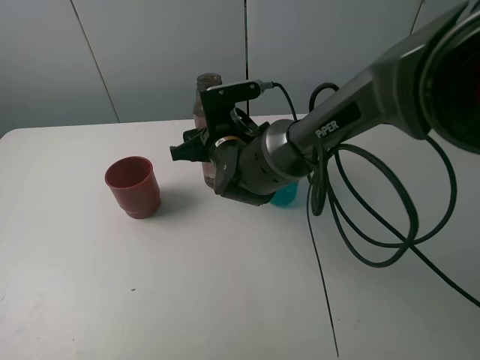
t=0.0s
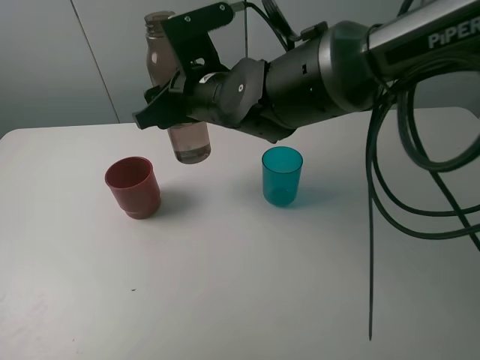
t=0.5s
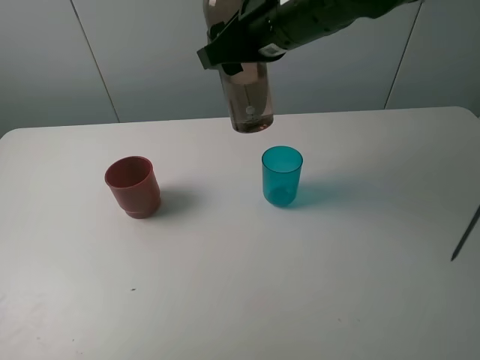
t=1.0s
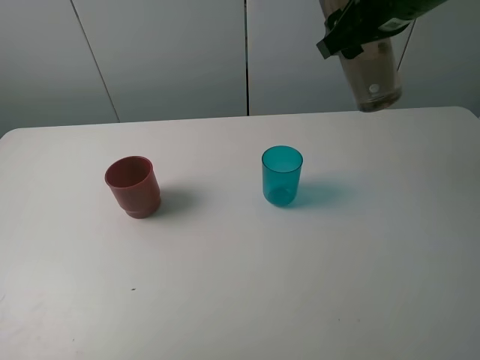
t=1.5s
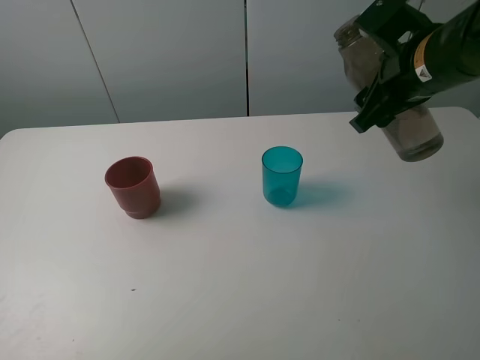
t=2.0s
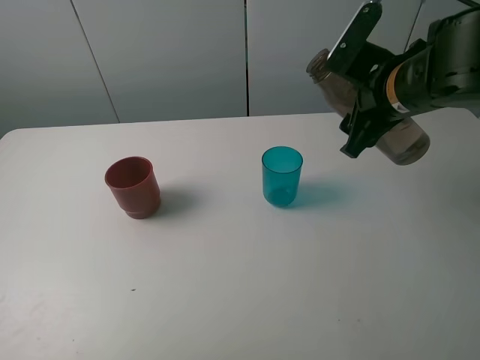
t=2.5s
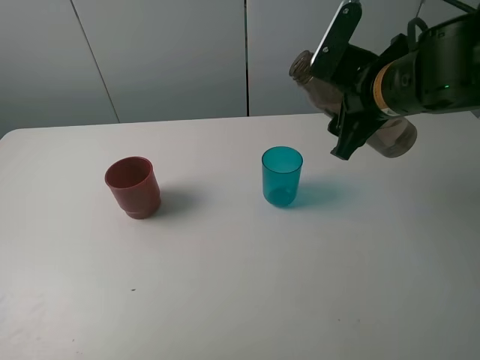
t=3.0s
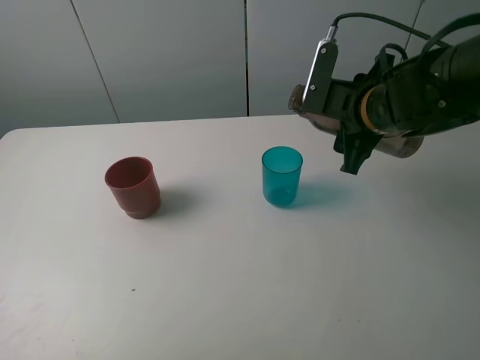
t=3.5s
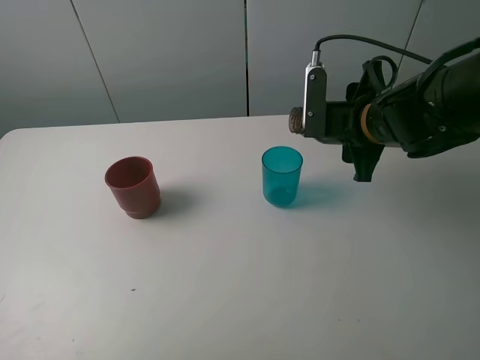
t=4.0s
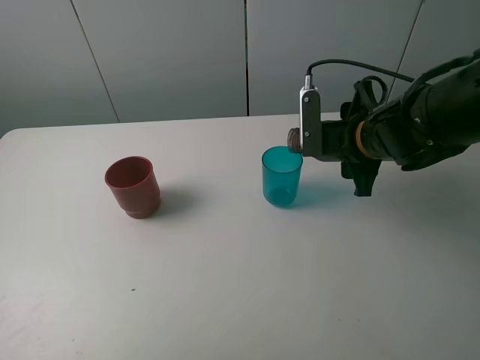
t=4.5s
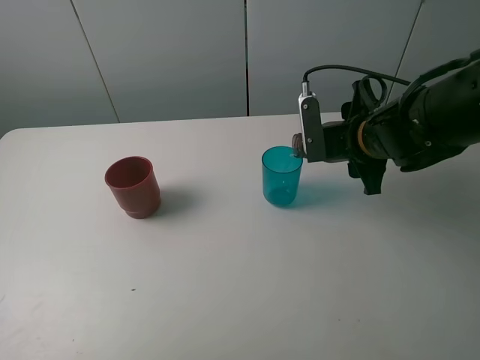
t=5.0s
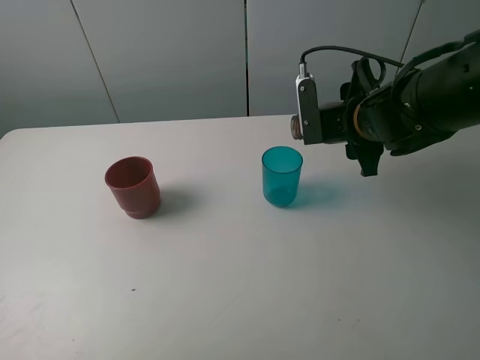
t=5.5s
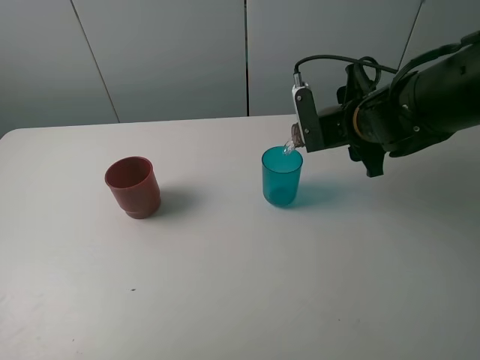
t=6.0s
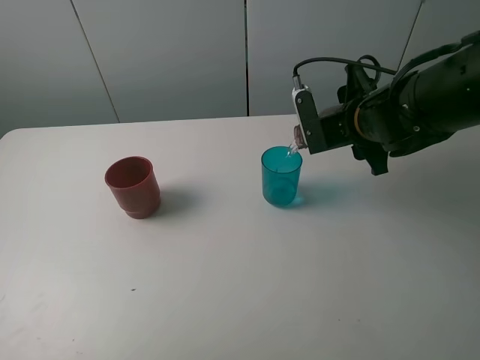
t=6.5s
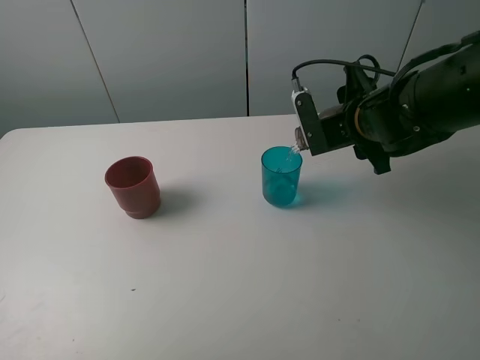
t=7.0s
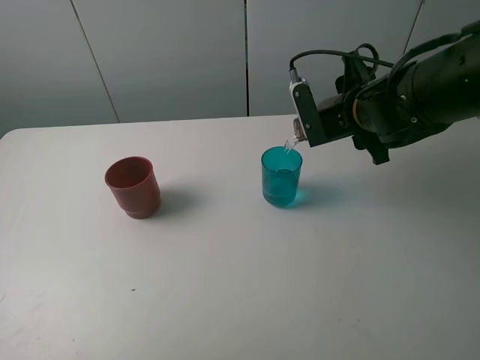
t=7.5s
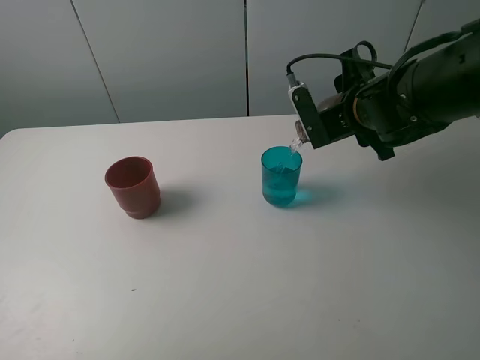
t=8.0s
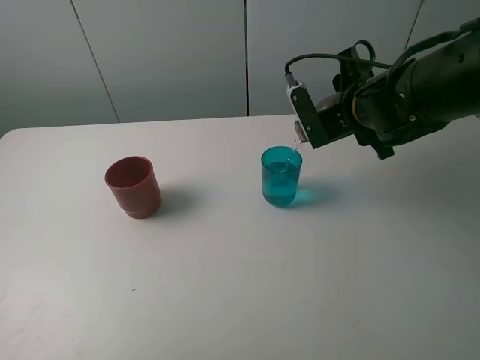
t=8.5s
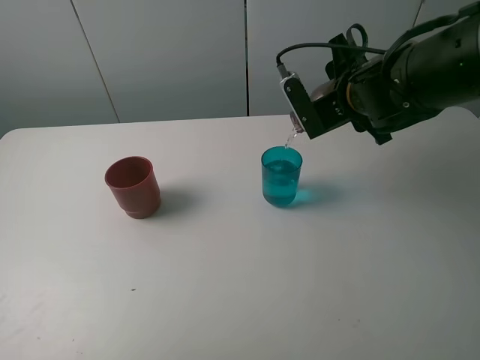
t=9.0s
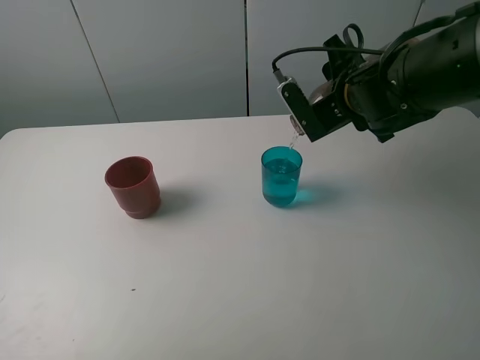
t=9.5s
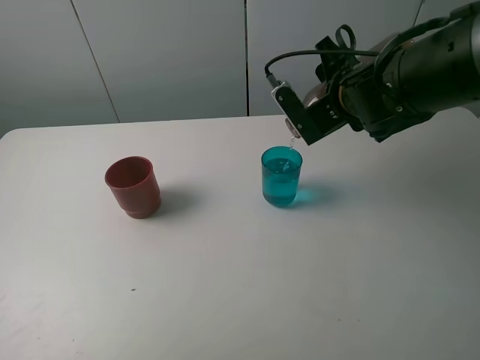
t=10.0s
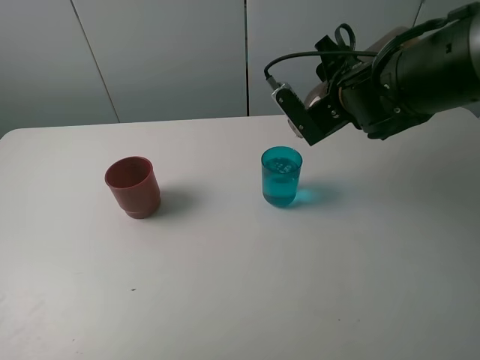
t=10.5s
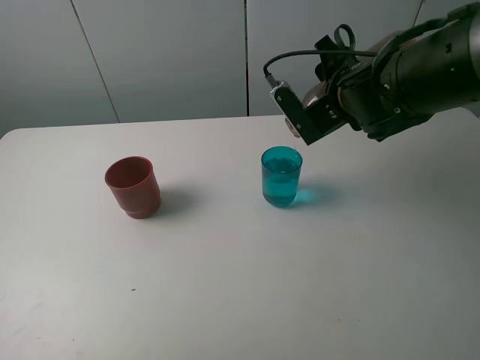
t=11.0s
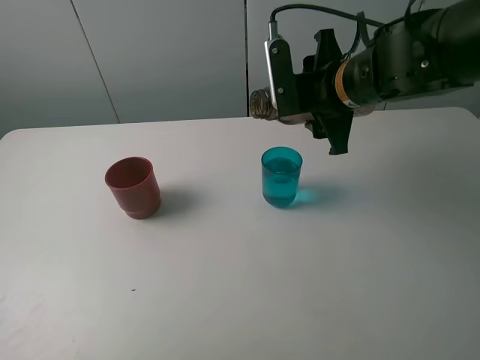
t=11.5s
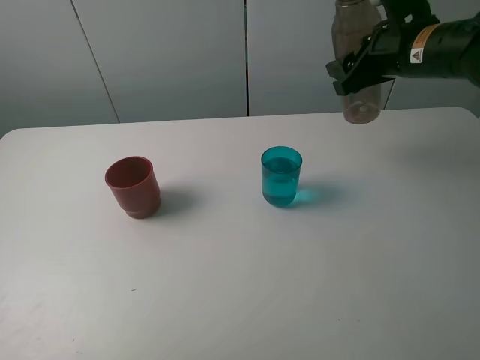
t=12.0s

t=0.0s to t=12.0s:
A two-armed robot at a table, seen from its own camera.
Task of the whole recording: pick up the bottle and pour water into the cup, then pick up the cup containing water and pour it into another cup.
Step, t=0.0s to t=11.0s: Pour water from brown bottle to blue cup with the right gripper.
t=0.0s to t=2.0s: The right gripper heads to the right and upward, covering some 25 cm.
t=2.0s to t=4.0s: The right gripper is displaced downward by roughly 5 cm.
t=4.0s to t=6.0s: There are only small adjustments of the grippers.
t=6.0s to t=8.0s: There are only small adjustments of the grippers.
t=8.0s to t=10.0s: The grippers stay close to where they were, moving slightly.
t=10.0s to t=12.0s: The right gripper travels to the right by some 10 cm.

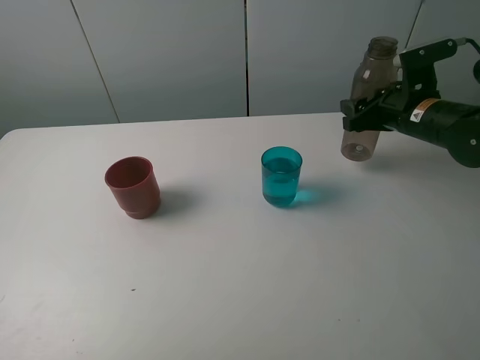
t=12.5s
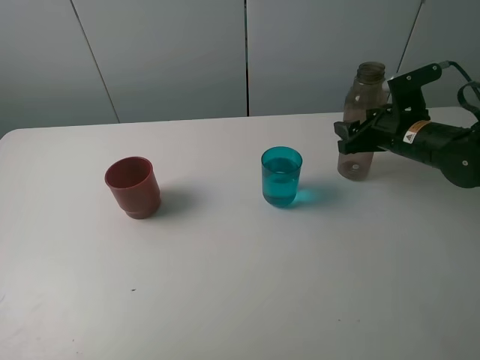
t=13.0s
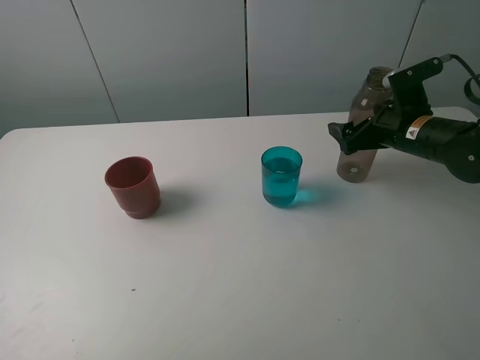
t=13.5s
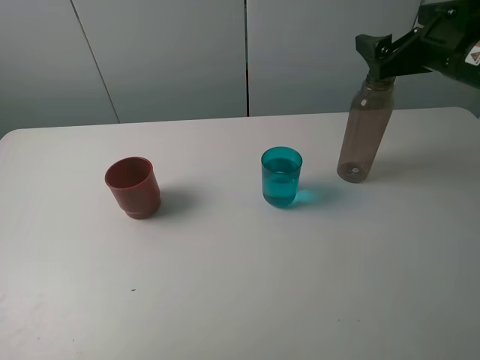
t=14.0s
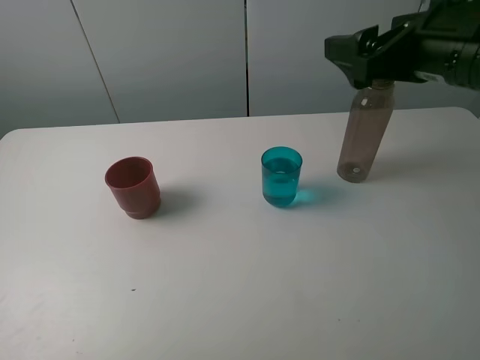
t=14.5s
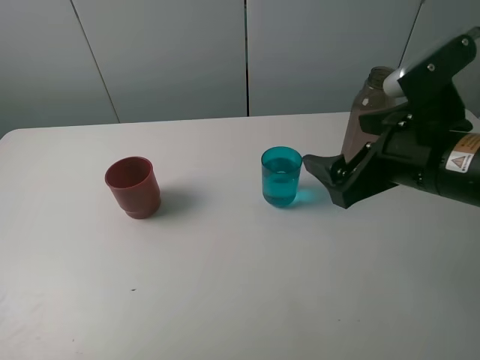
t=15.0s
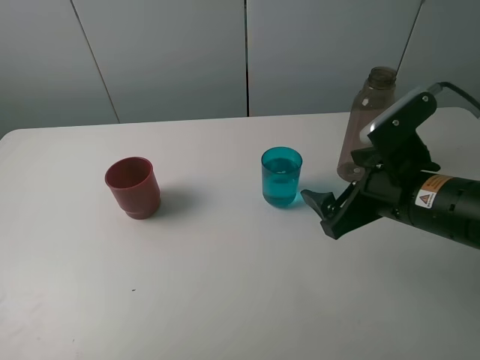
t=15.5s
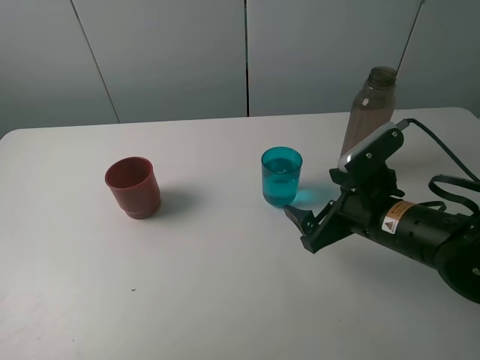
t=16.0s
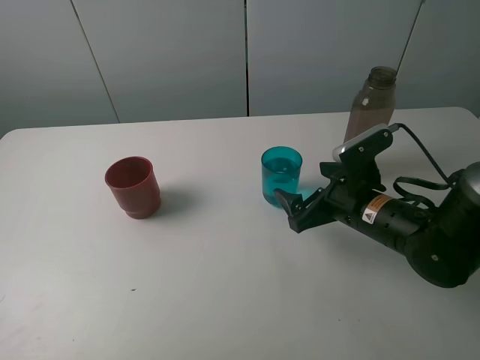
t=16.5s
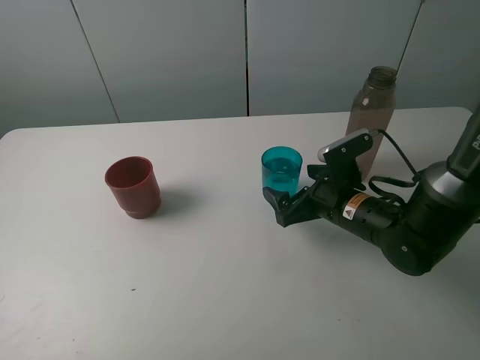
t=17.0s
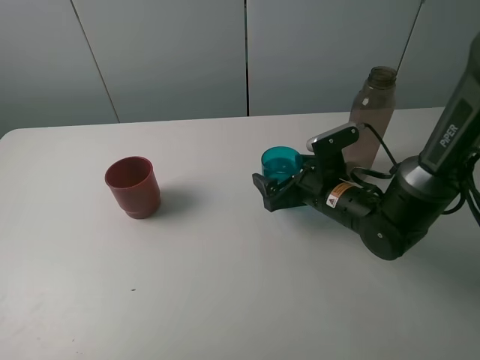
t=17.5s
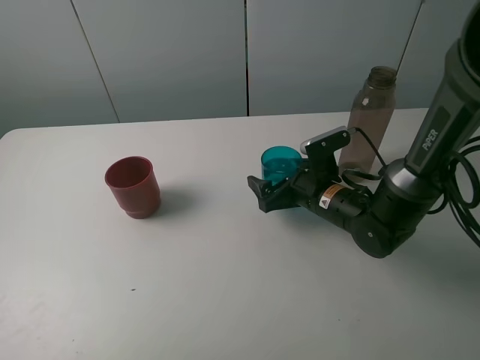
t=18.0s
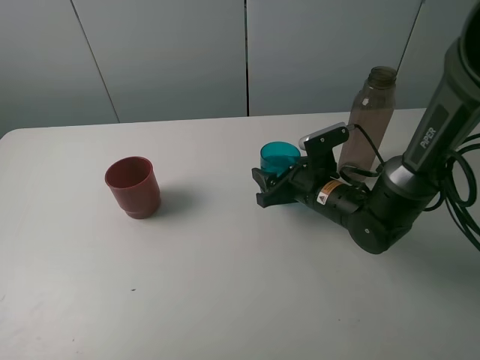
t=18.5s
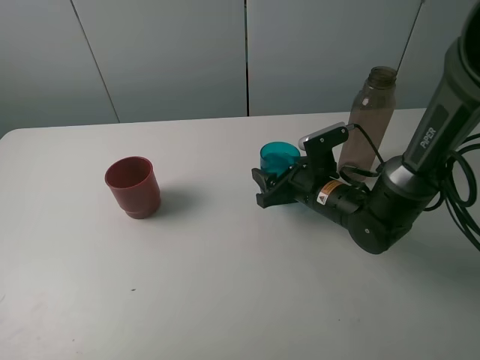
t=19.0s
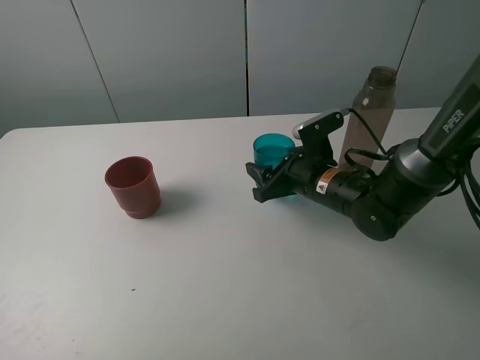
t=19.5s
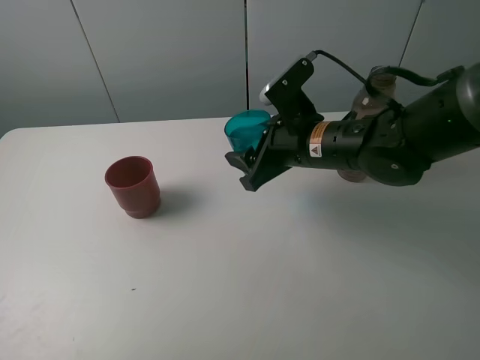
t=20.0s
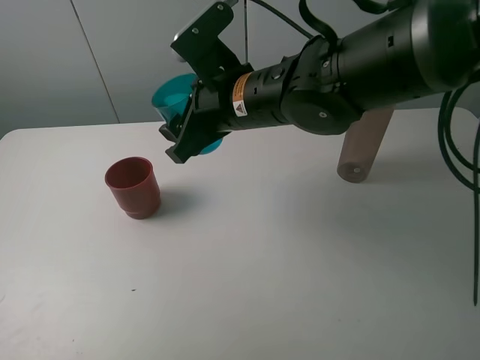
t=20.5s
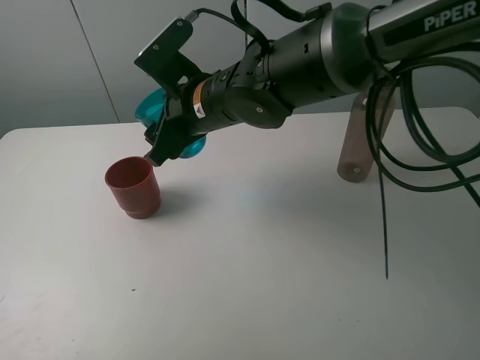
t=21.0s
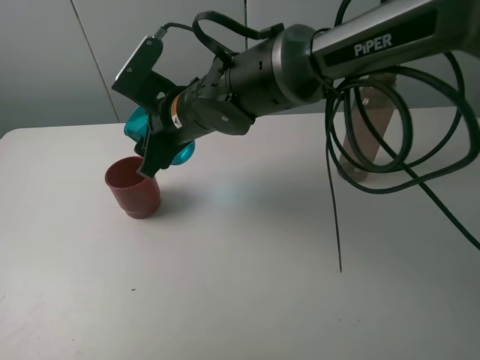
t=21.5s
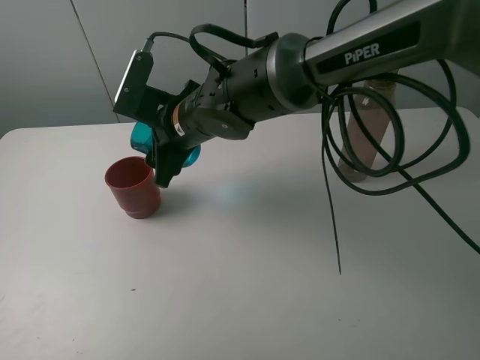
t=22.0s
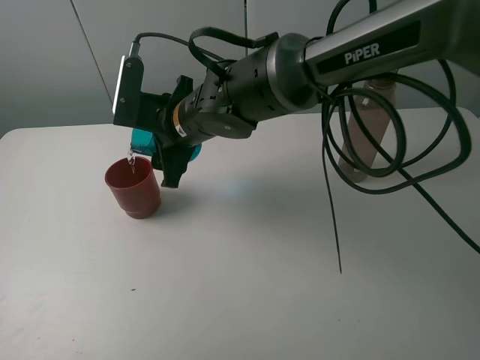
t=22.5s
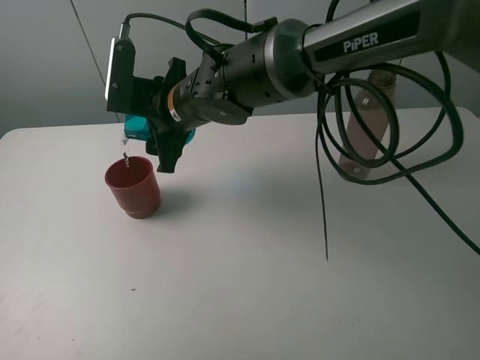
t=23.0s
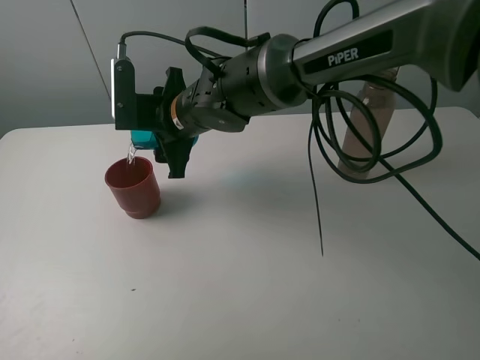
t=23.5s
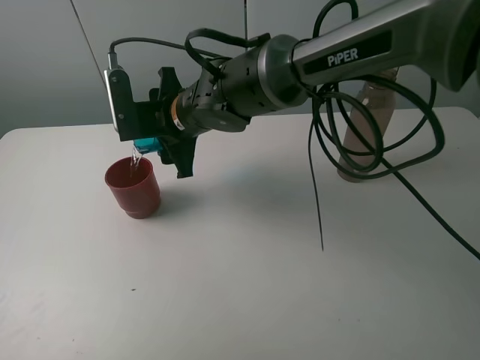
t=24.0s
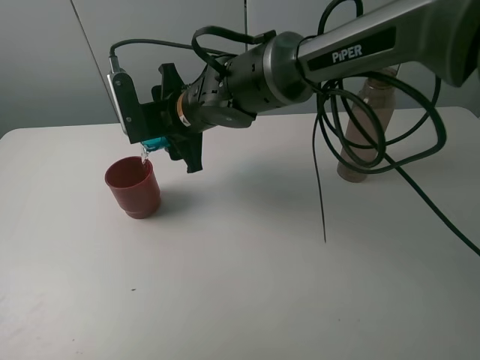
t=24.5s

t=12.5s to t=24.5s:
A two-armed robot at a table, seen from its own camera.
Task of the whole recording: pick up the bottle and pour water into the cup, then pick up the cup containing water and pour it into another cup.
Step, t=14.0s to t=18.0s: Grasp the blue cup with the right gripper.
t=12.5s to t=14.5s: The right gripper is displaced upward, backward and to the left by approximately 20 cm, and opens its fingers.
t=14.5s to t=16.5s: The right gripper moves downward, some 20 cm.
t=16.5s to t=18.5s: The right gripper is displaced forward by some 5 cm, and closes its fingers.
t=18.5s to t=20.5s: The right gripper is displaced upward and to the left by roughly 20 cm.
t=20.5s to t=22.5s: The right gripper moves to the left, some 5 cm.

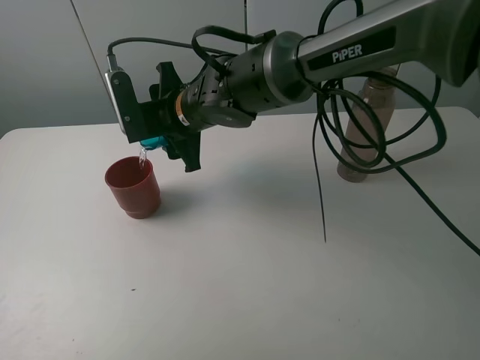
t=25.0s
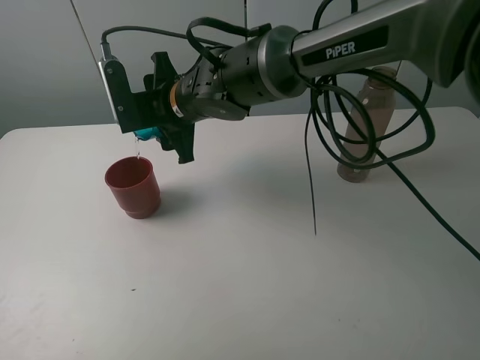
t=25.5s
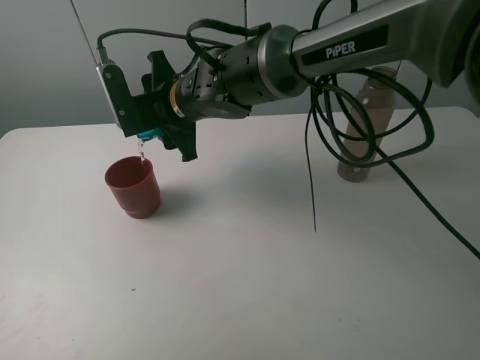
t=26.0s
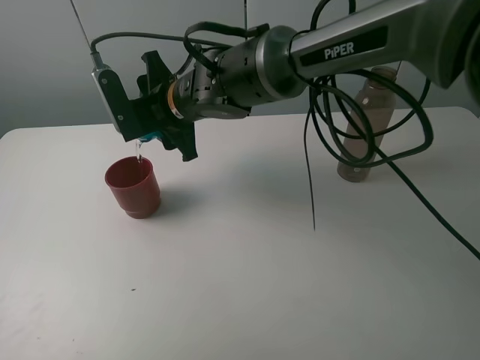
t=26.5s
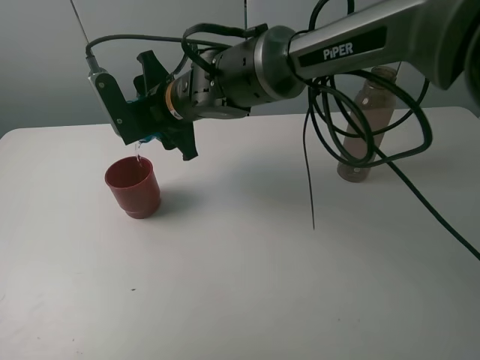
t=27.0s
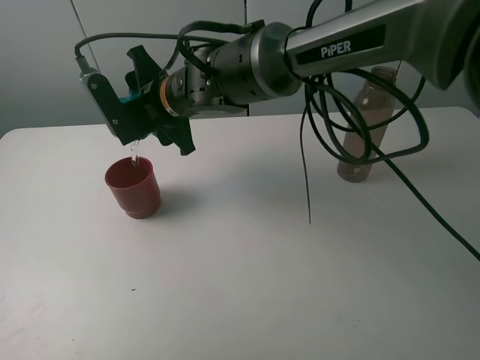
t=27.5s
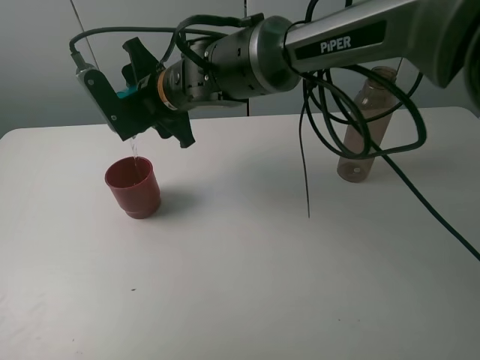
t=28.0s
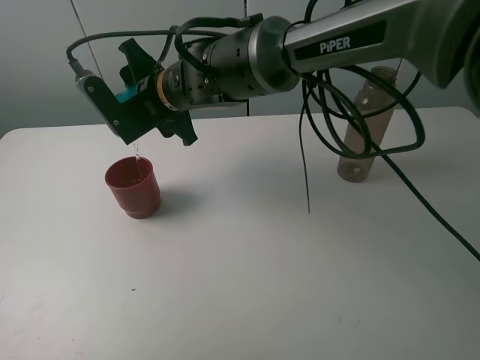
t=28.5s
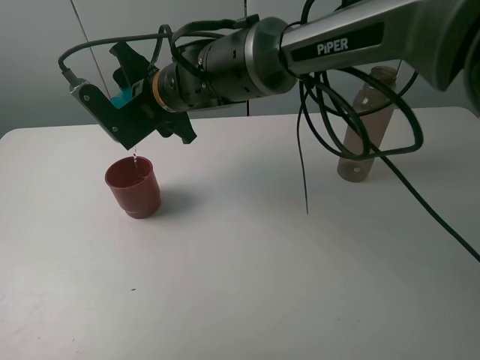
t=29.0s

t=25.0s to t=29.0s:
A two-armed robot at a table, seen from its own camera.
Task of the whole recording: pick up the bottle and pour water into the cup, then pick up the cup containing water and pour it into another cup.
t=25.0s to t=27.0s: The grippers stay close to where they were, moving slightly.
t=27.0s to t=29.0s: There are only small adjustments of the grippers.
